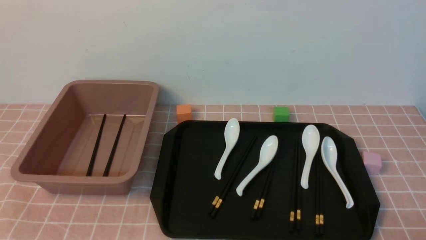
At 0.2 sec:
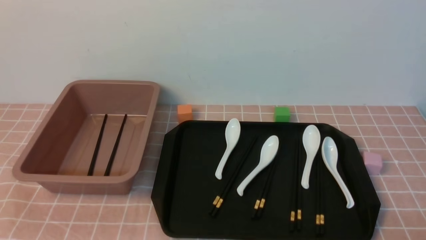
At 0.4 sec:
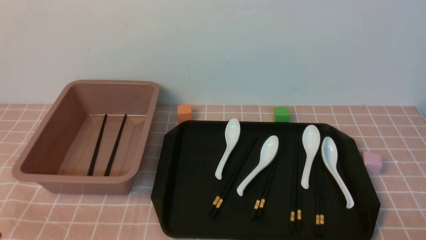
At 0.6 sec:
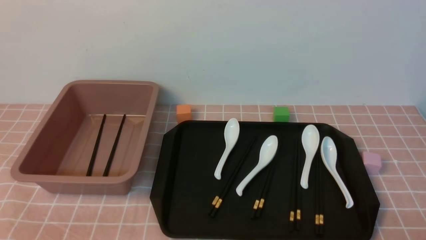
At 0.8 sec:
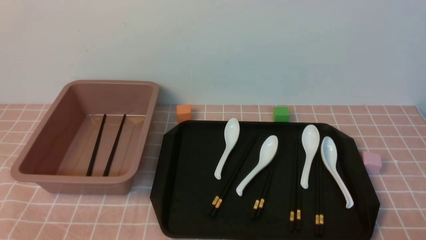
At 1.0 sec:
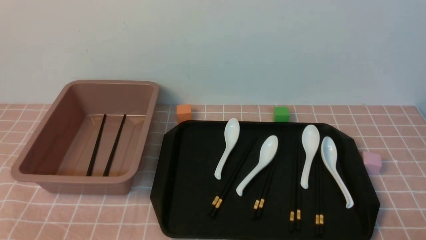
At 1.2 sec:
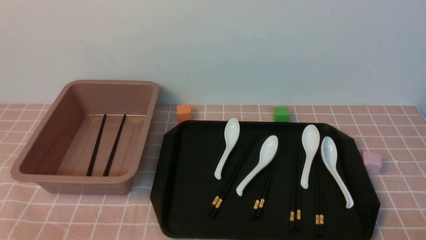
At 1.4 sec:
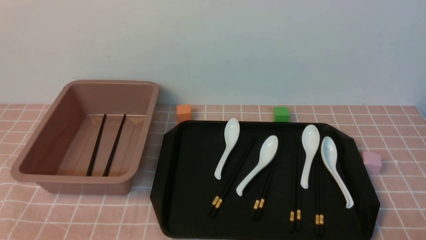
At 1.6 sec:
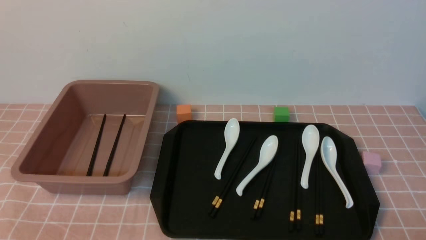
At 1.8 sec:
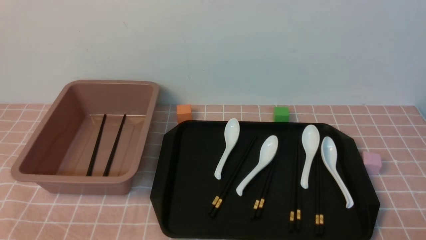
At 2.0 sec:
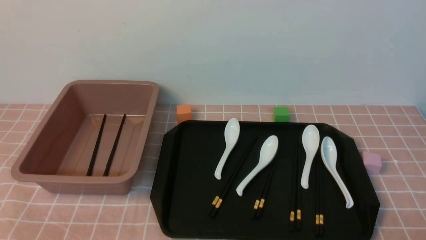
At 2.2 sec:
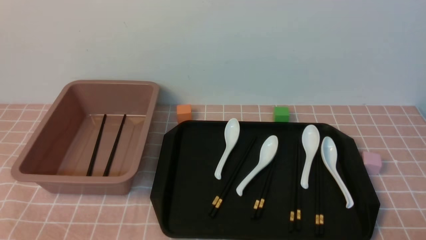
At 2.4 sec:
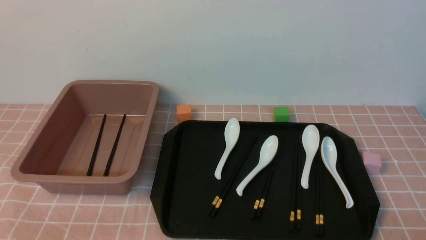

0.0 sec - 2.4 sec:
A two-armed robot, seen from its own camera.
1.2 sec - 2.4 sec: Both grippers stay about where they are.
